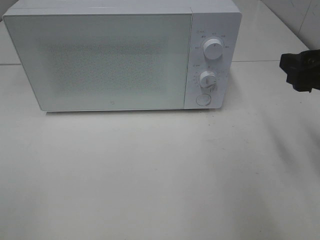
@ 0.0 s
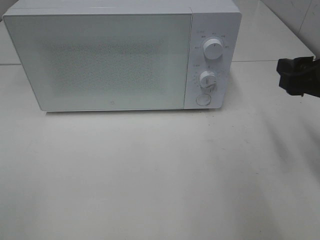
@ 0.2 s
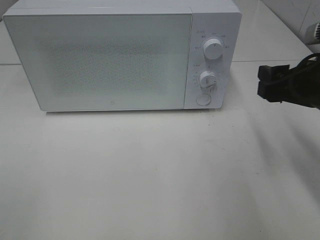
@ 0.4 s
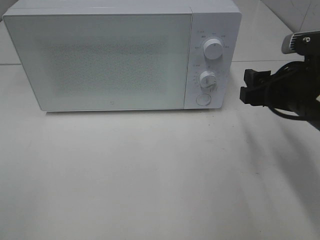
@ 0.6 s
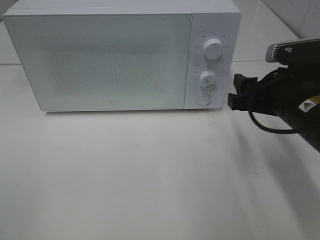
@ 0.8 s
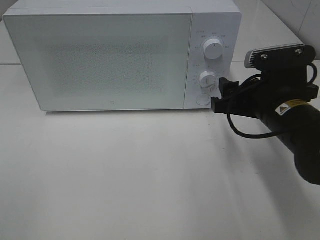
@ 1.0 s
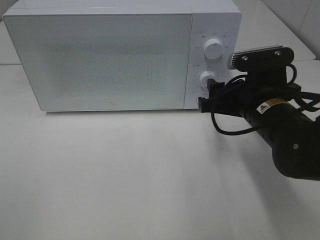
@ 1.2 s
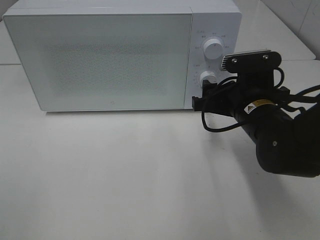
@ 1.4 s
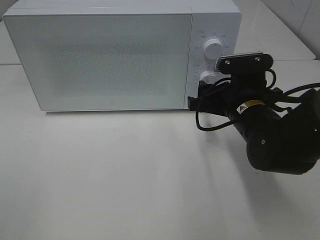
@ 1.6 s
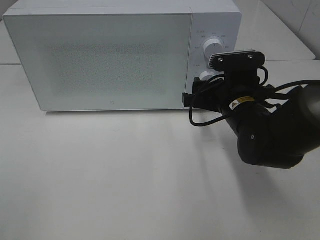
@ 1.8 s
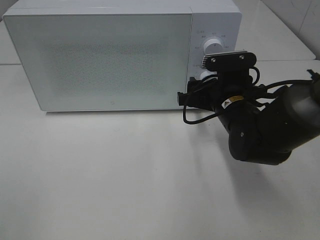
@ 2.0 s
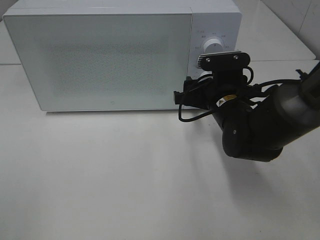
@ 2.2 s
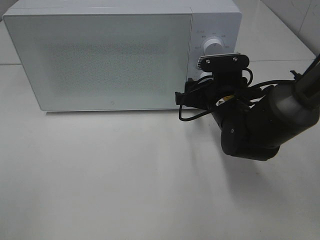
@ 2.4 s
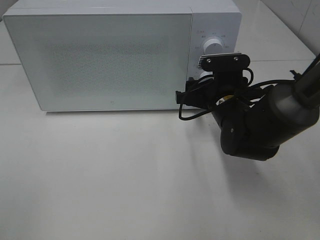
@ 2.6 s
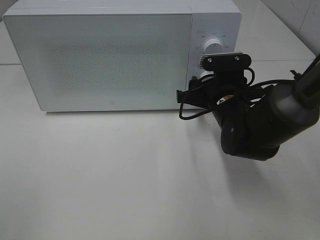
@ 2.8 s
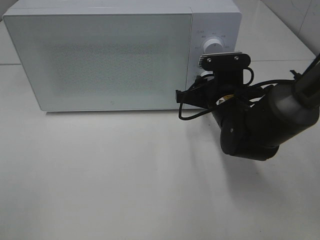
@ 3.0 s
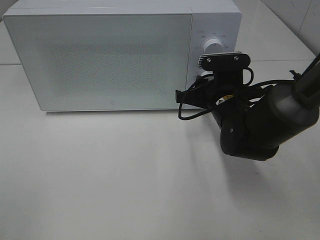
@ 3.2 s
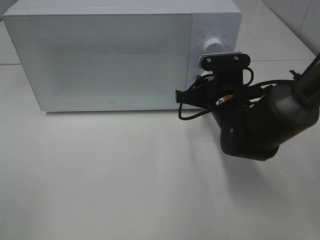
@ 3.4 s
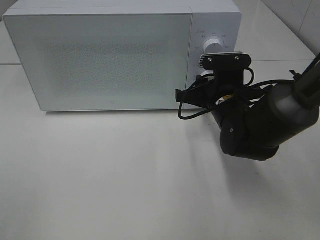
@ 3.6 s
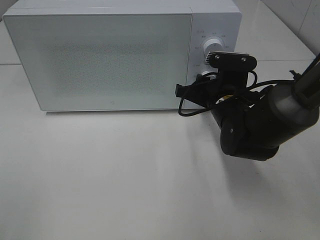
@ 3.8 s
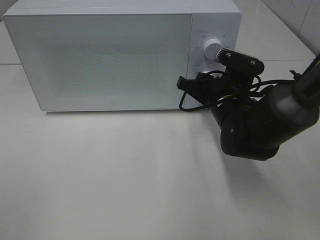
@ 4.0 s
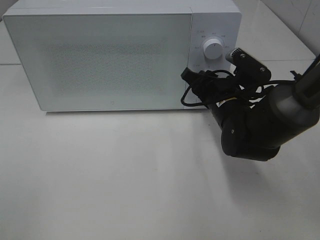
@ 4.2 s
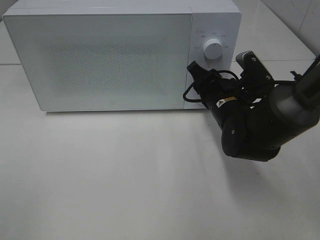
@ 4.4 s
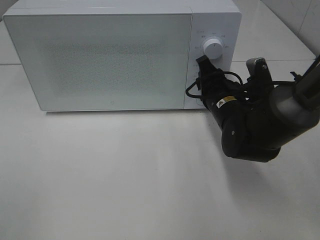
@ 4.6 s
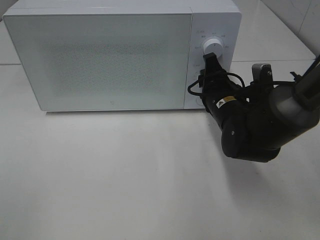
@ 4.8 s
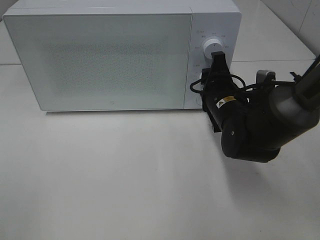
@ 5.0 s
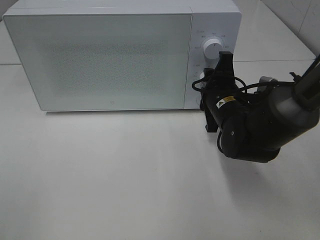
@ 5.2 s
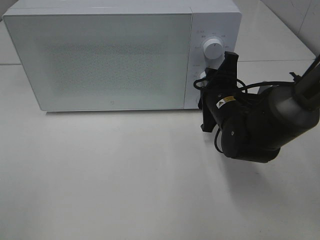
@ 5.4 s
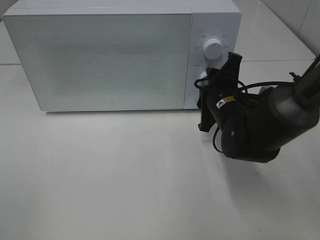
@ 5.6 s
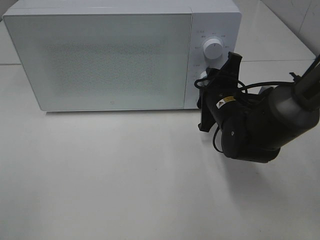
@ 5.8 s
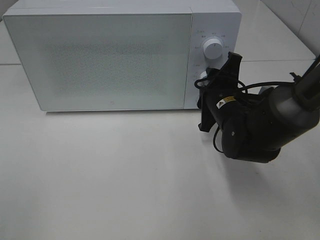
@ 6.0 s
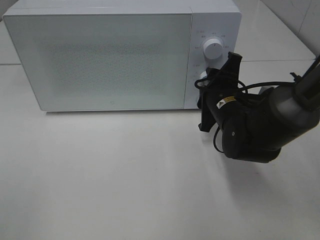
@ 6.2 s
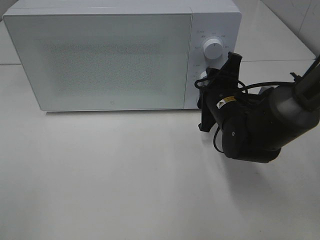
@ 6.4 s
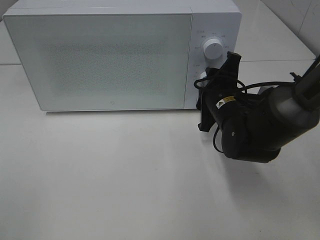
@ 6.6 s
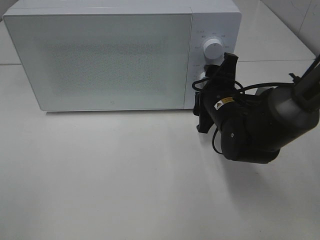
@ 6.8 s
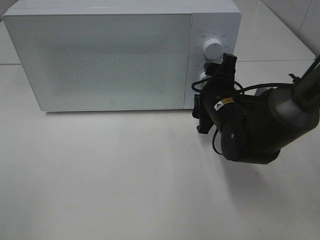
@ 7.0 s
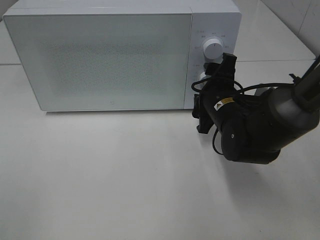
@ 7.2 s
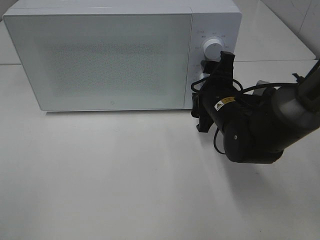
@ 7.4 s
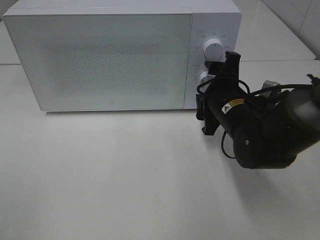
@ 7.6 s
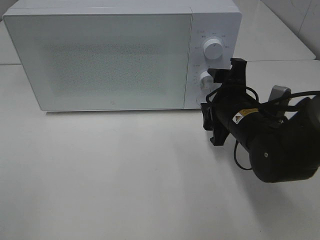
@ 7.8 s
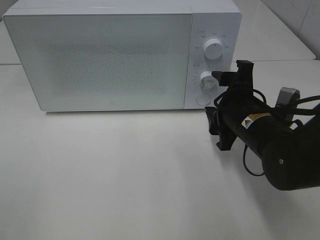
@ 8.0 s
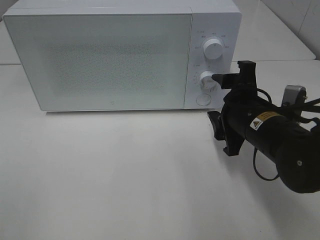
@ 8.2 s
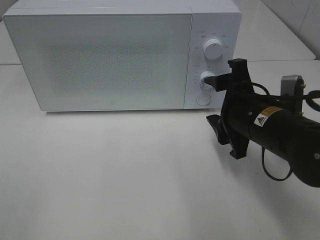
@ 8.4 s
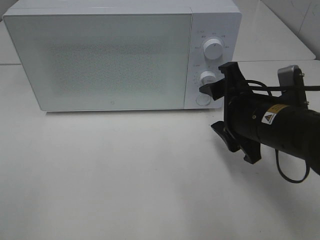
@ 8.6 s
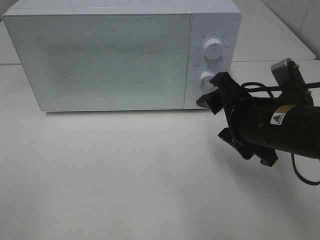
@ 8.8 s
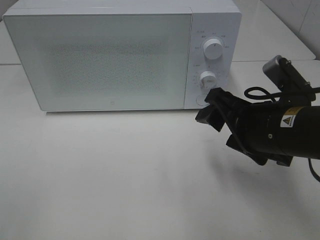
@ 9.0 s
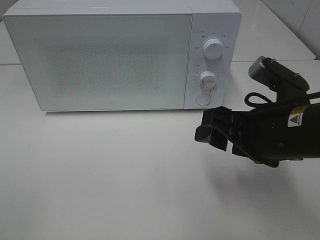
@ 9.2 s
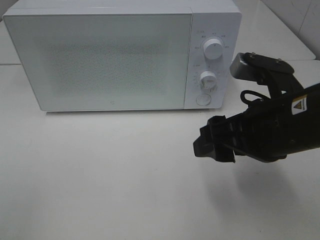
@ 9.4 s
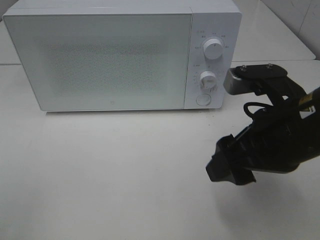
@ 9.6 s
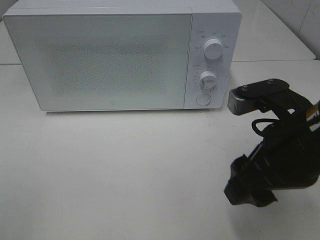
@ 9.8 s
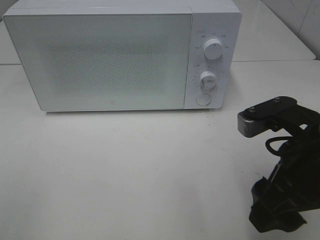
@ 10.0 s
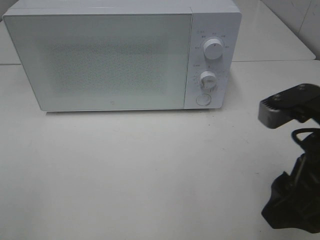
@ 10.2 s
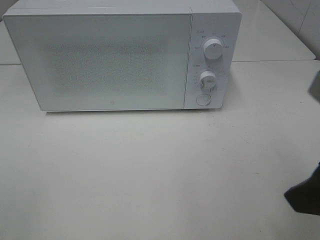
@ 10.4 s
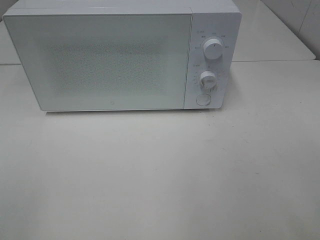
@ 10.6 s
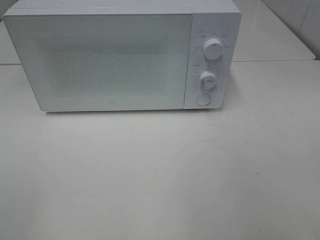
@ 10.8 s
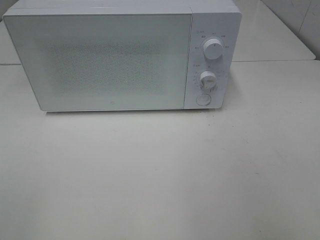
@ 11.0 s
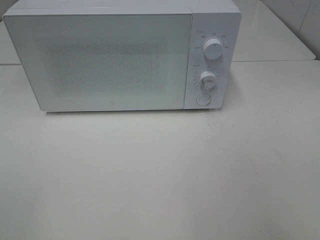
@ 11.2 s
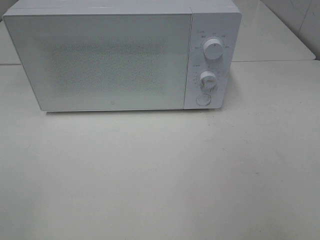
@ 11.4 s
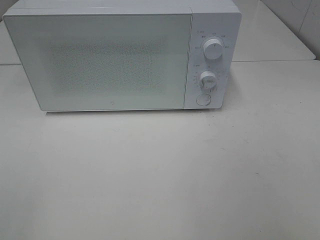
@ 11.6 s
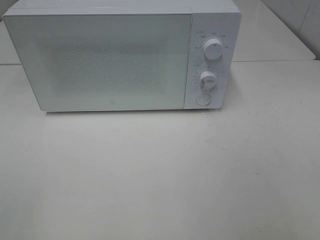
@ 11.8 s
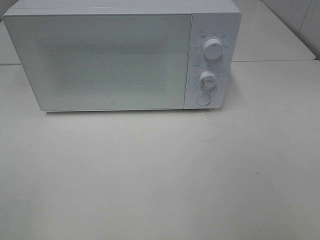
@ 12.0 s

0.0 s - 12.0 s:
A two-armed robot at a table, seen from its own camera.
Task of the whole recording: Heat Sandwich.
Step, 0.0 s - 7.6 s: Right hand: twist timer button.
0.0 s - 1.6 s: The right gripper moves to the left, downward and forward, roughly 15 cm.
1.6 s - 3.0 s: The right gripper closes up.
6.0 s - 7.6 s: The right gripper opens.
7.6 s - 9.0 s: The right gripper goes about 10 cm backward and upward.
9.0 s - 10.4 s: The right gripper moves backward, upward and to the right, about 15 cm.
10.4 s - 12.0 s: The right gripper travels backward and to the right by approximately 15 cm.

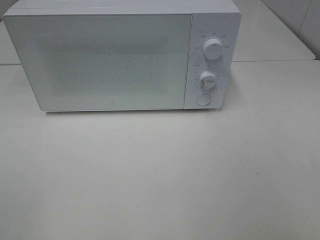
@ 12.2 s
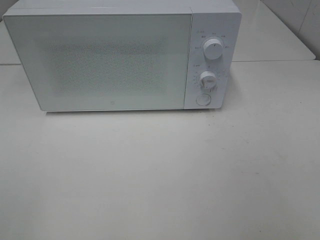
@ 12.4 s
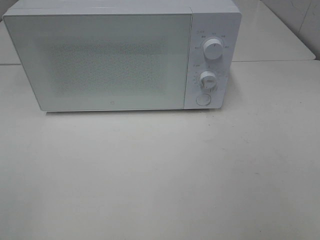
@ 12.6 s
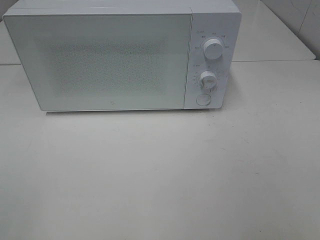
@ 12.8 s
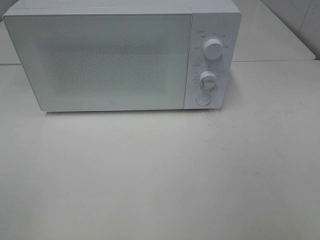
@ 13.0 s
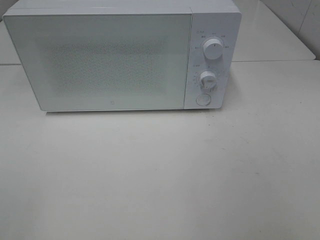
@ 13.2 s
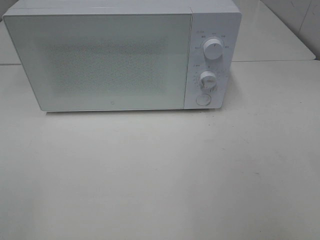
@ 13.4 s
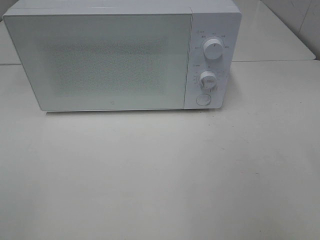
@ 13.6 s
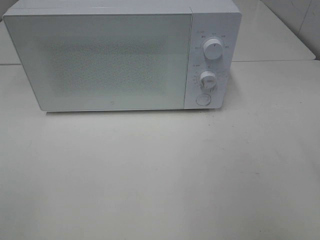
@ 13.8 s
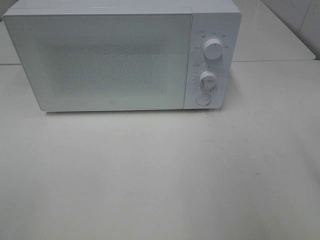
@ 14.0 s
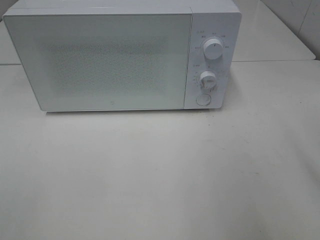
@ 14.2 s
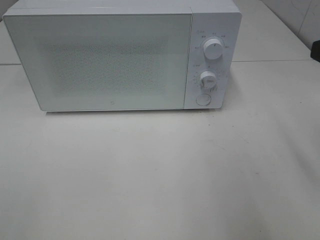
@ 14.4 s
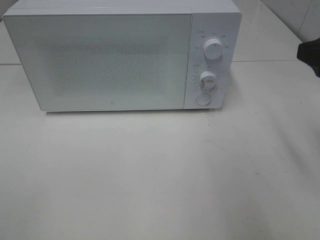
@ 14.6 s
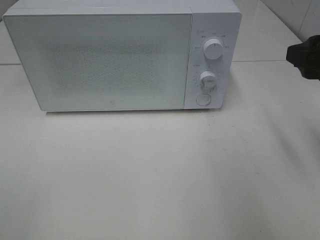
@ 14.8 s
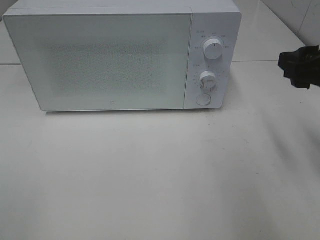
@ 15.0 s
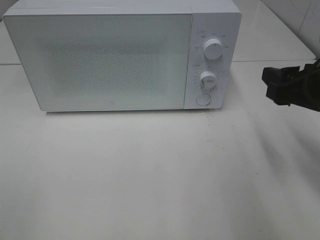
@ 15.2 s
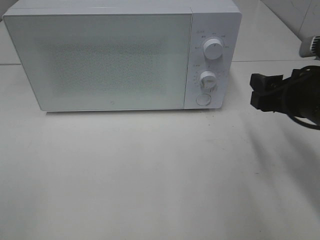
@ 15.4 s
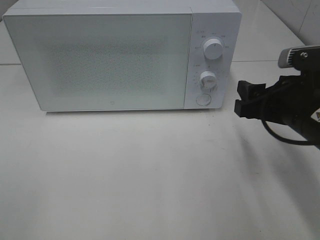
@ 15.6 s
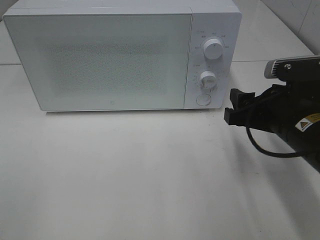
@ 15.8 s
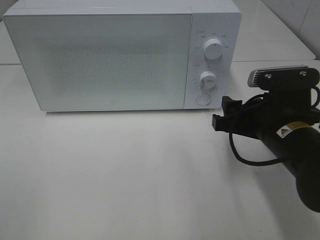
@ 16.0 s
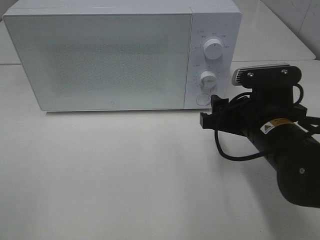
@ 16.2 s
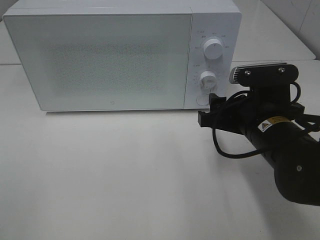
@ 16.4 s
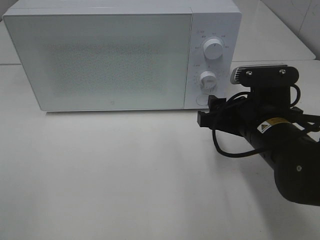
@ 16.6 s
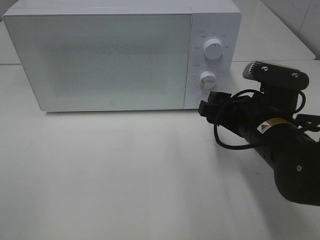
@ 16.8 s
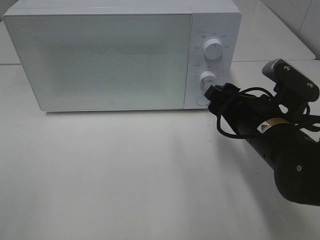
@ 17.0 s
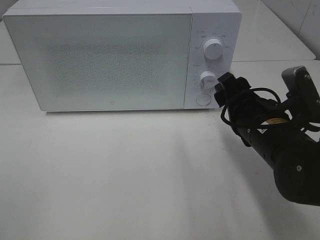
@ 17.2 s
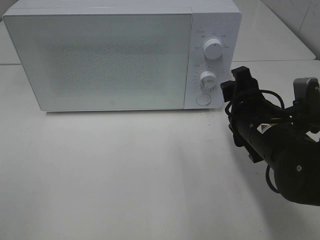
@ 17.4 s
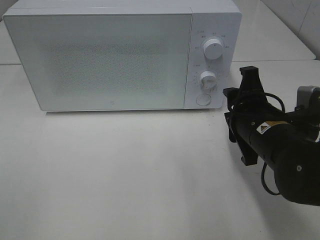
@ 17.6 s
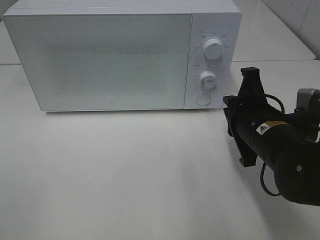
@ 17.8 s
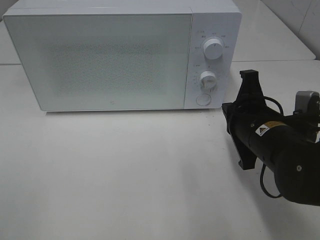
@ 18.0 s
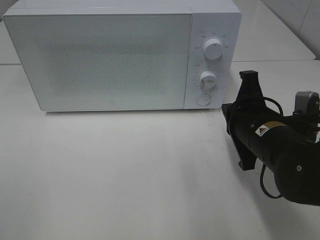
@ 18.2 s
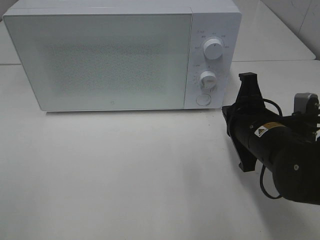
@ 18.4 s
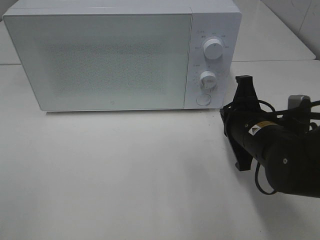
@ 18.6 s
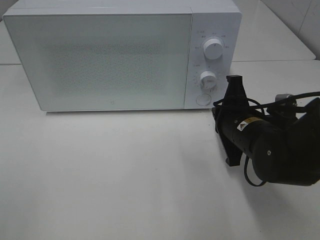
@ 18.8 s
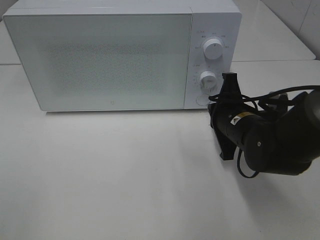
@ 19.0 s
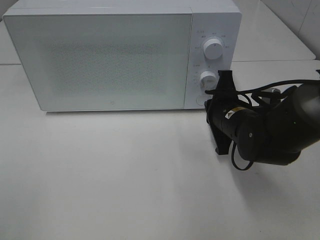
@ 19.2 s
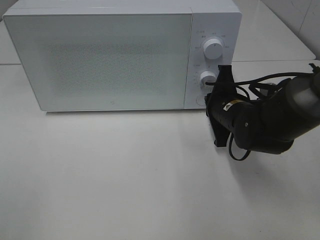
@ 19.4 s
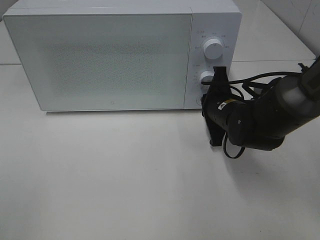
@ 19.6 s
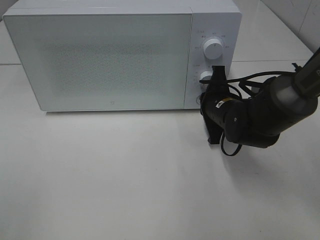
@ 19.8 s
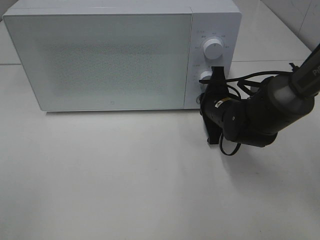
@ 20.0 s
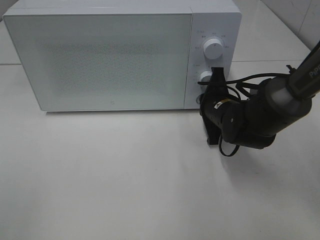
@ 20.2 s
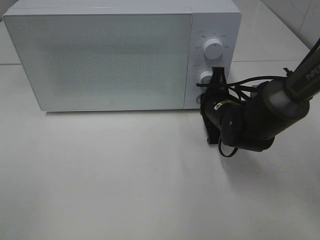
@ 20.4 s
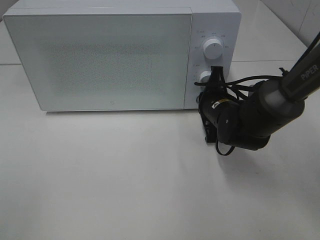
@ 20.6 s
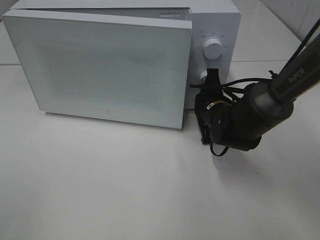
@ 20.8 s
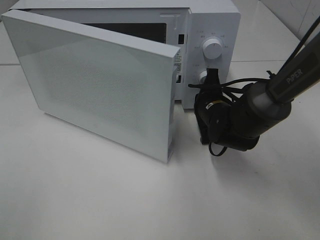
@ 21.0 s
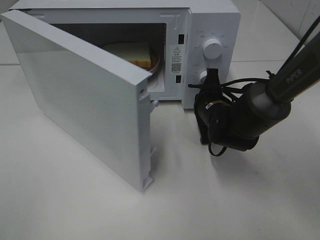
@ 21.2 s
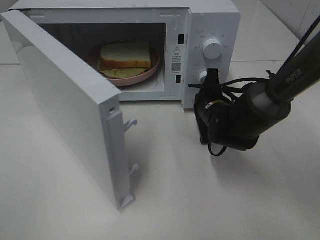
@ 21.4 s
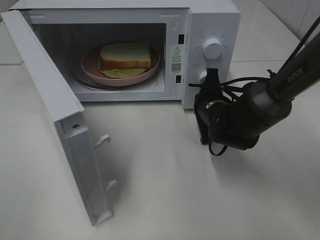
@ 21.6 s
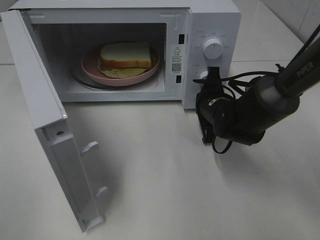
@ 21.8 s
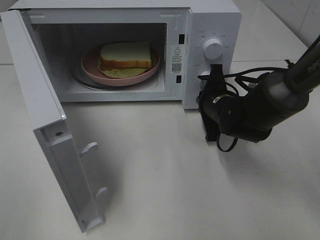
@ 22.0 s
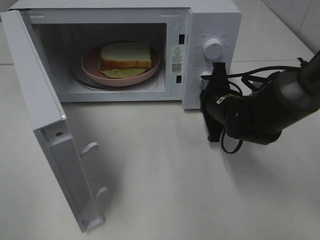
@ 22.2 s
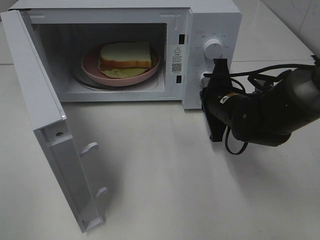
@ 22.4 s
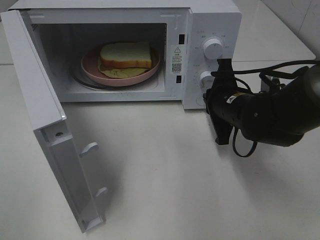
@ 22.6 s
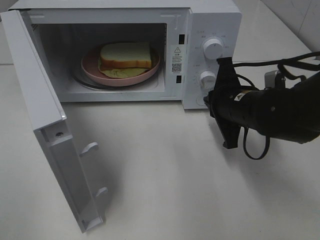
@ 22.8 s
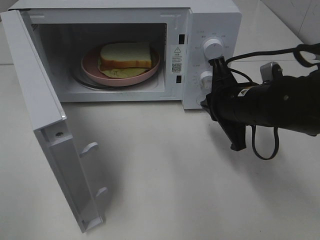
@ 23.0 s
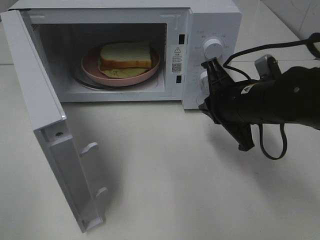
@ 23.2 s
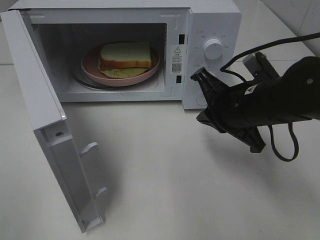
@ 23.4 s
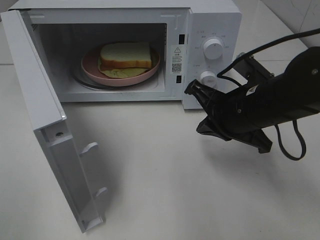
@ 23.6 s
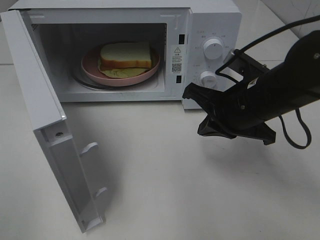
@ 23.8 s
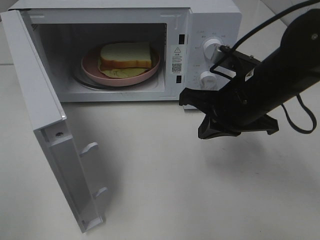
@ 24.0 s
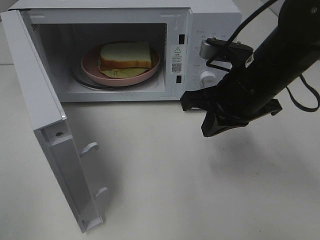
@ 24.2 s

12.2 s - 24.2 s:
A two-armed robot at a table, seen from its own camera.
Task of the whole recording: Heat Sandwich.
Step, 12.2 s - 22.6 s: Right hand: press the switch.
13.8 s - 15.2 s: The right gripper shifts approximately 15 cm forward and downward.
15.2 s - 16.6 s: The right gripper travels to the left and downward by some 10 cm.
16.6 s - 18.2 s: The right gripper closes its fingers.
18.2 s - 19.8 s: The right gripper moves forward and downward, some 15 cm.
21.2 s - 22.6 s: The right gripper moves about 5 cm.
22.6 s - 24.2 s: The right gripper is displaced upward by approximately 10 cm.
